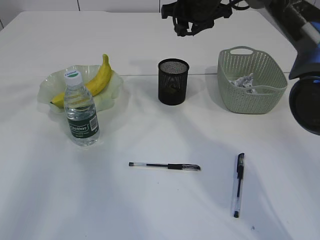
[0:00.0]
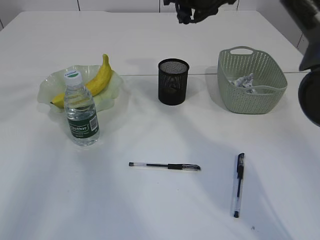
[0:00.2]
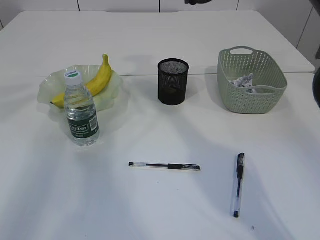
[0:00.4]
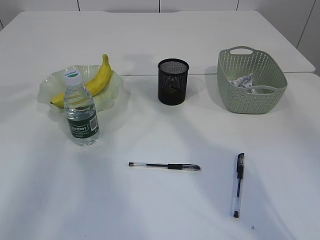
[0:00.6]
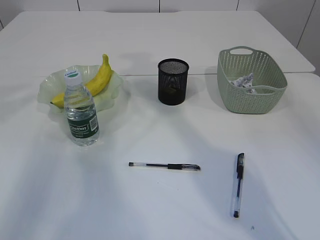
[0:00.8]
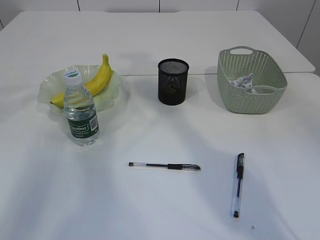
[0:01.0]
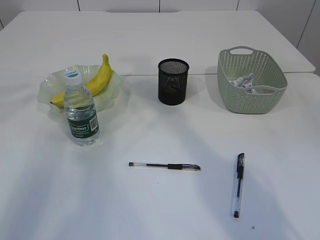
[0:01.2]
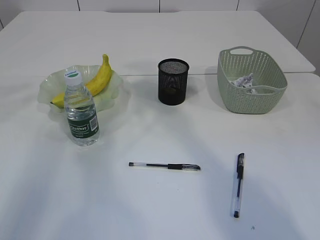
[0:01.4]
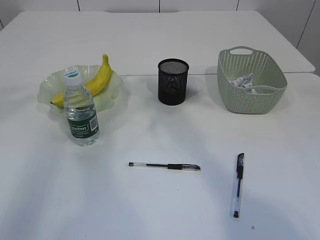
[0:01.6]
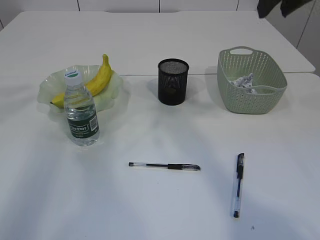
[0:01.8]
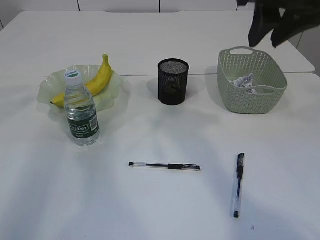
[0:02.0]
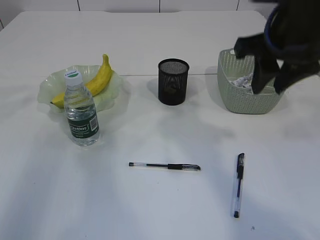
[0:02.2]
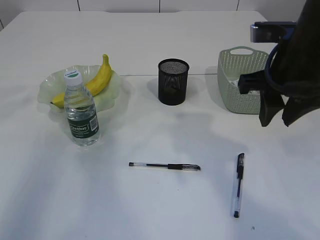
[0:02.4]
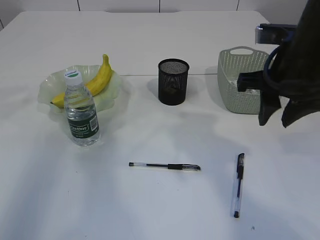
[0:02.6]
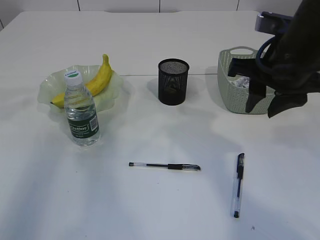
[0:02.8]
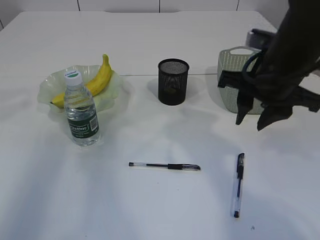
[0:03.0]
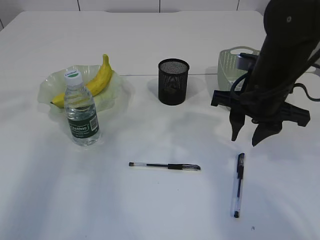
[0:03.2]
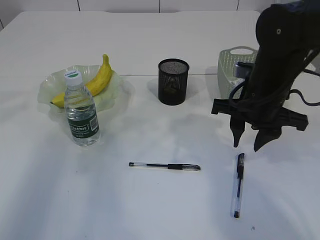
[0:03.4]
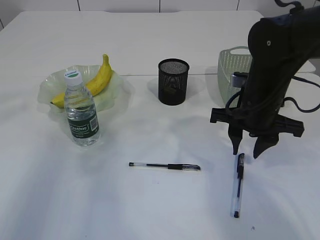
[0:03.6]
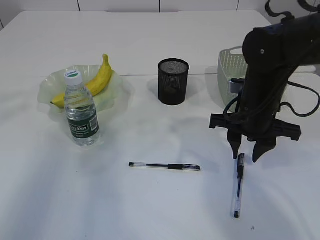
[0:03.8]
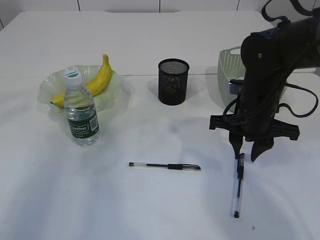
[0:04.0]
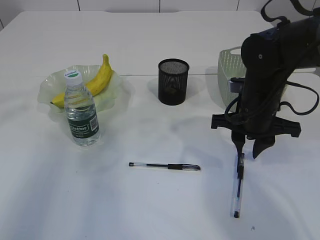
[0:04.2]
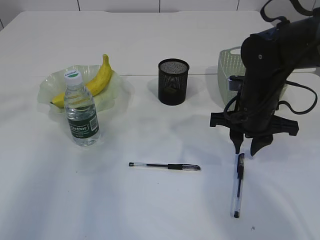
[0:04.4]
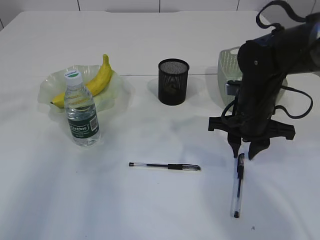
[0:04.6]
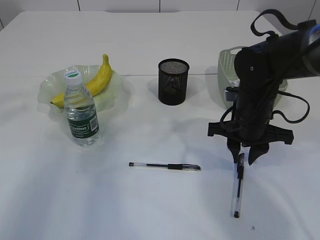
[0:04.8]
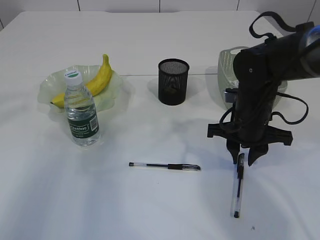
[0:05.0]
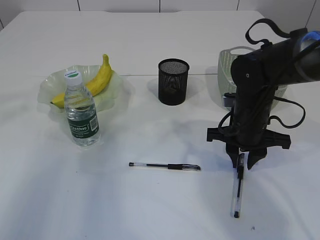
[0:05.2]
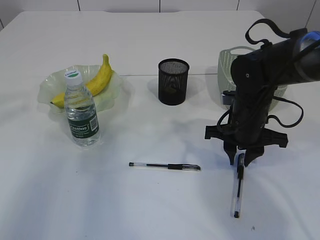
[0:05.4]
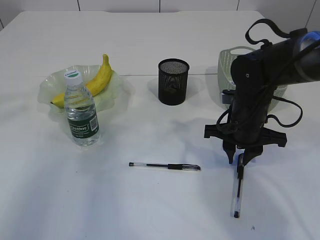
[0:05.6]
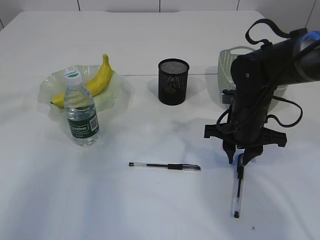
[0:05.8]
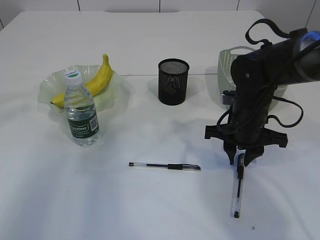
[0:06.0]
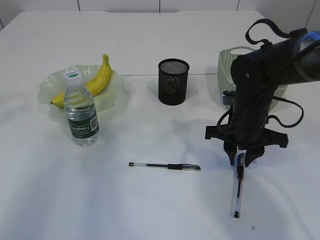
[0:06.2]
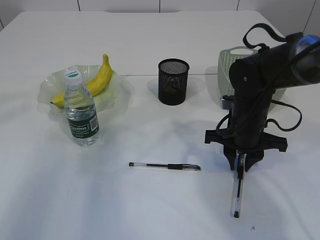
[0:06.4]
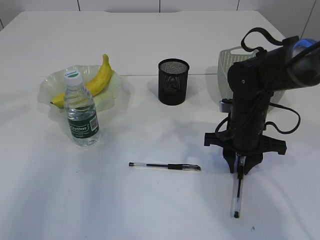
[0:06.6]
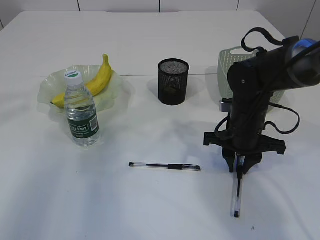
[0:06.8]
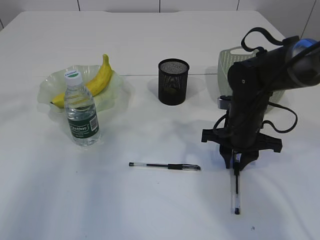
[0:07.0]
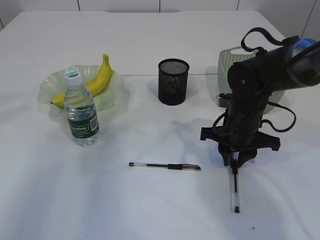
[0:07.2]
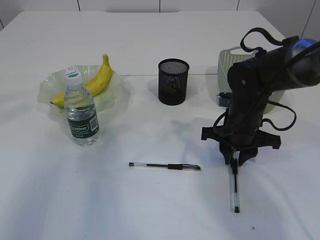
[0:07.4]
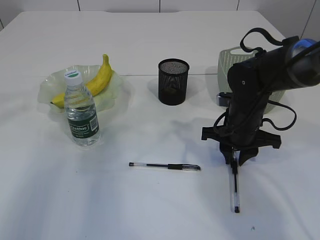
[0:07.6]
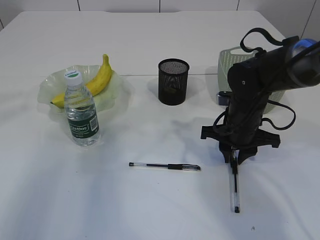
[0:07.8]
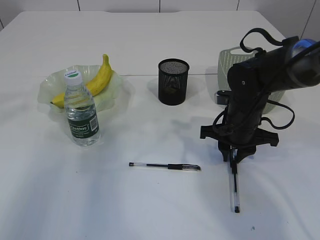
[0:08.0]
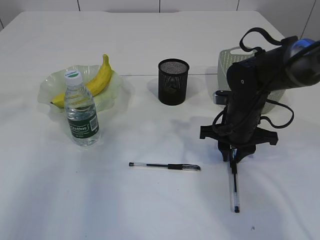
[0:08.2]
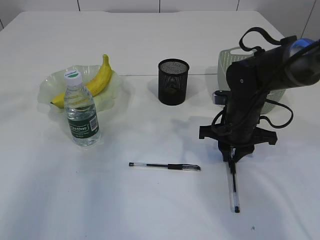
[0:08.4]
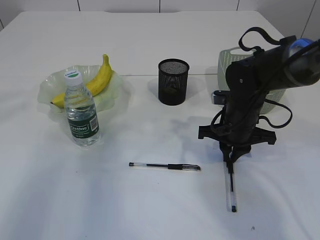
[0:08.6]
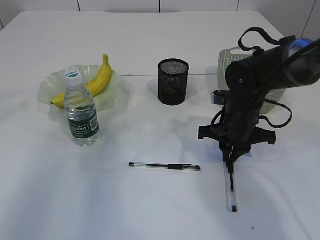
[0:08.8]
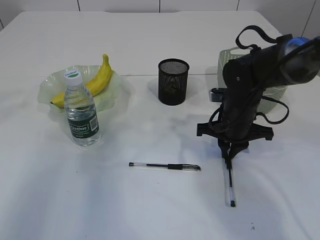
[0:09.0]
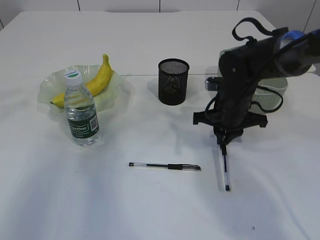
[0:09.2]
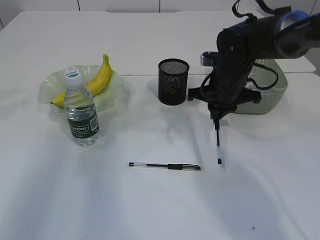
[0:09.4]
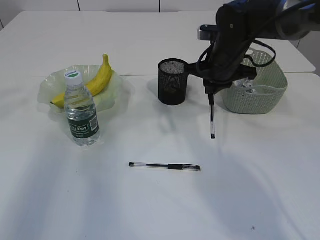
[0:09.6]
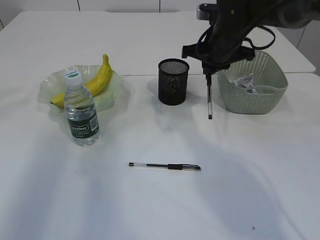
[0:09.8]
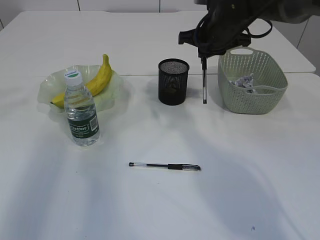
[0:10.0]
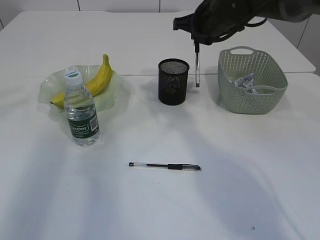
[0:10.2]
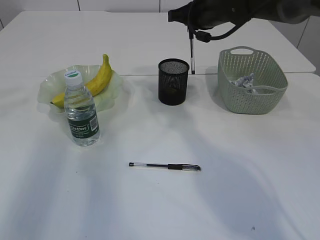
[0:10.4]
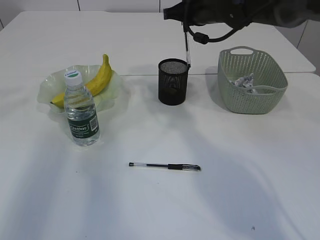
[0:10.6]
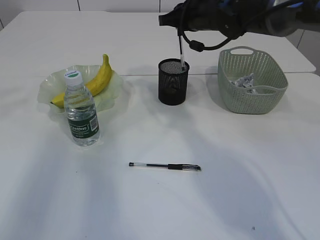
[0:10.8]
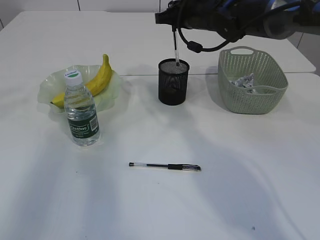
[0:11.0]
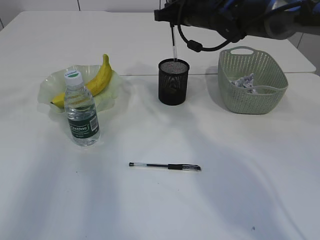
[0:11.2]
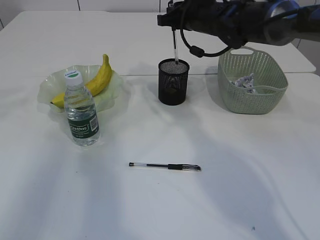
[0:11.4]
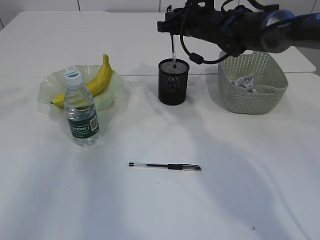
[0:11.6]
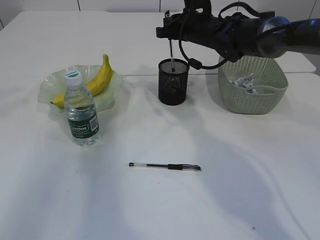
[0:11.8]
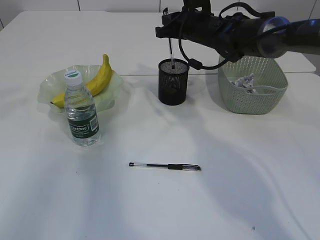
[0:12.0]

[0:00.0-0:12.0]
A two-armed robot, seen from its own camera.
Step, 0:00.0 to 0:09.6: Pick up the pen with right arm.
0:00.0 to 0:01.6: The right gripper shifts about 20 cm backward, upward and to the right.
0:01.6 to 0:03.0: The right gripper heads downward, covering roughly 15 cm.
0:03.0 to 0:04.4: The right gripper heads downward, covering about 10 cm.
0:04.4 to 0:07.6: There are only small adjustments of the grippers.
0:07.6 to 0:09.0: Neither gripper changes place.
0:09.0 to 0:10.4: The right gripper goes approximately 20 cm upward and forward.
0:10.4 to 0:12.0: The right gripper ends up roughly 5 cm from where it was.

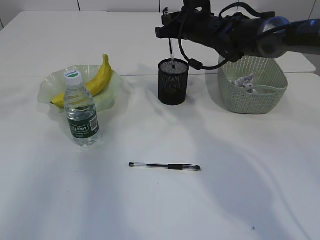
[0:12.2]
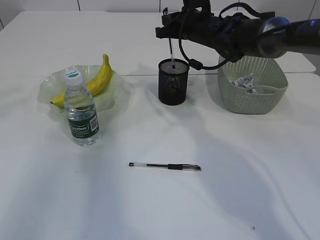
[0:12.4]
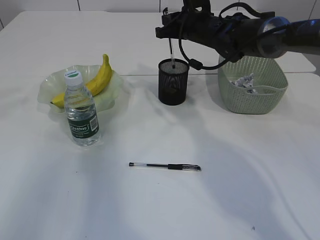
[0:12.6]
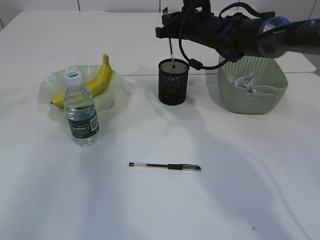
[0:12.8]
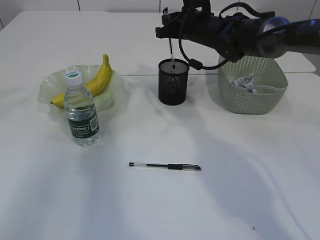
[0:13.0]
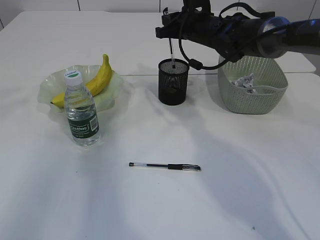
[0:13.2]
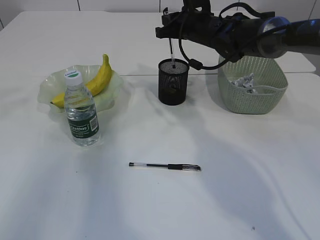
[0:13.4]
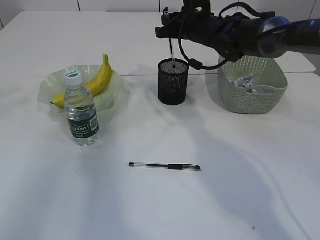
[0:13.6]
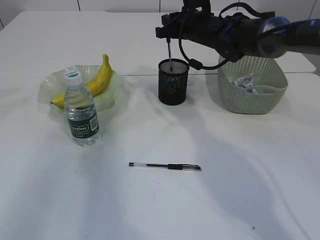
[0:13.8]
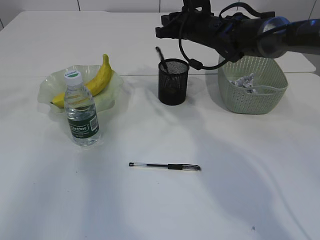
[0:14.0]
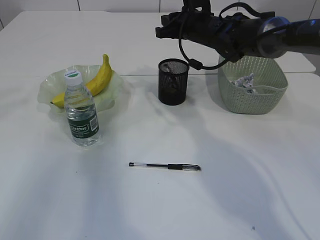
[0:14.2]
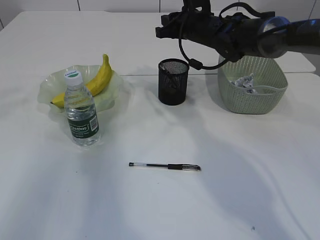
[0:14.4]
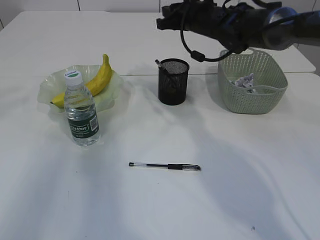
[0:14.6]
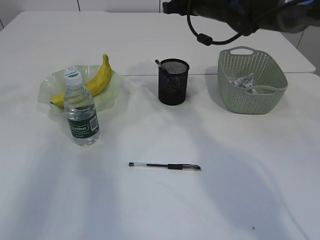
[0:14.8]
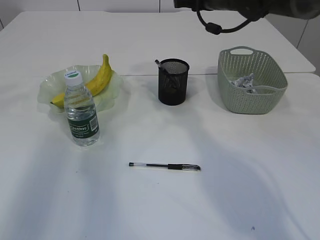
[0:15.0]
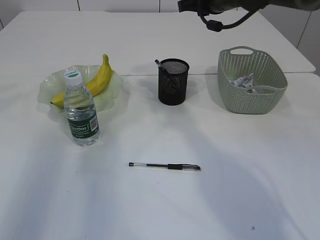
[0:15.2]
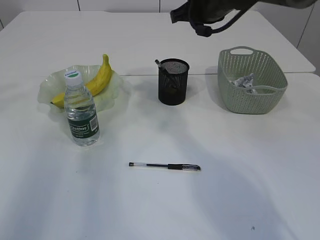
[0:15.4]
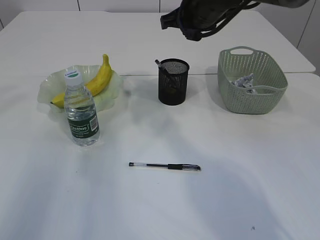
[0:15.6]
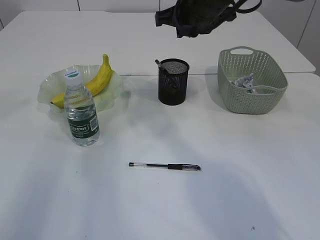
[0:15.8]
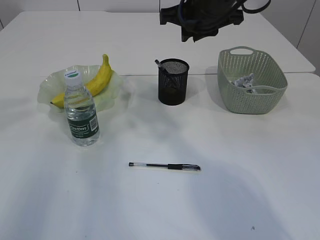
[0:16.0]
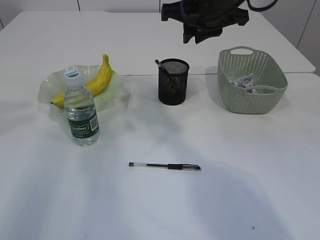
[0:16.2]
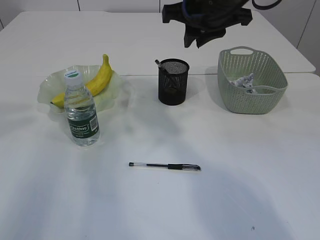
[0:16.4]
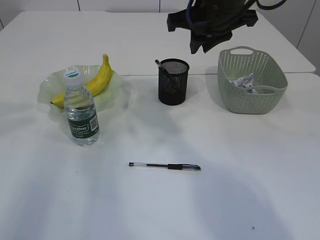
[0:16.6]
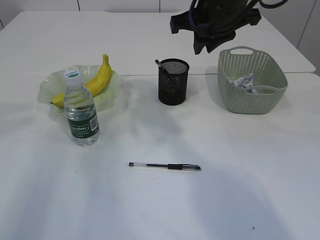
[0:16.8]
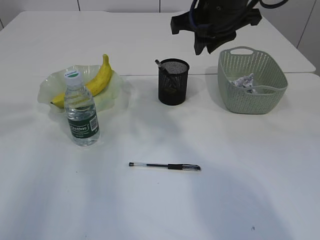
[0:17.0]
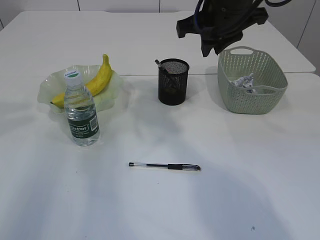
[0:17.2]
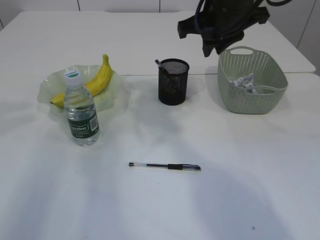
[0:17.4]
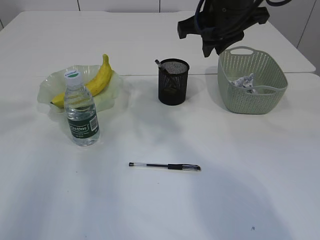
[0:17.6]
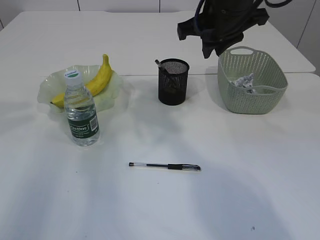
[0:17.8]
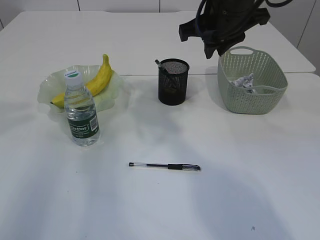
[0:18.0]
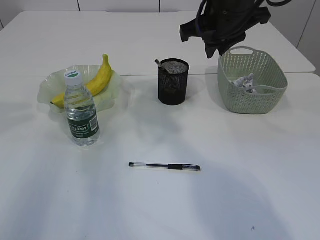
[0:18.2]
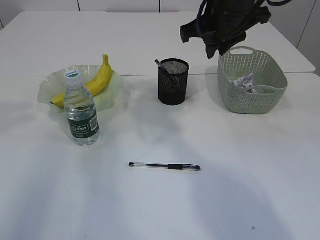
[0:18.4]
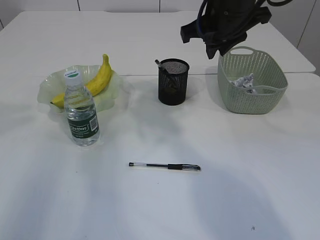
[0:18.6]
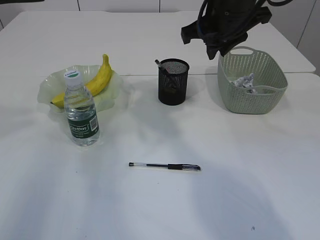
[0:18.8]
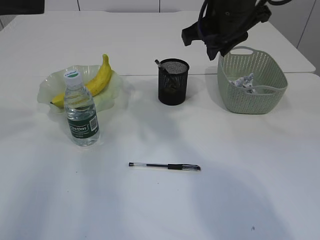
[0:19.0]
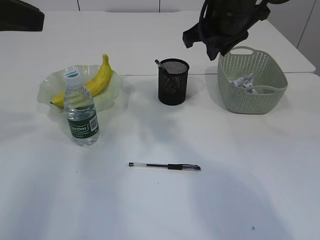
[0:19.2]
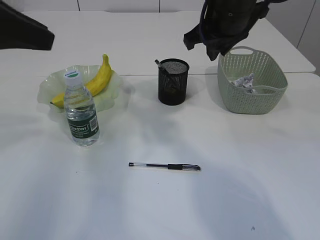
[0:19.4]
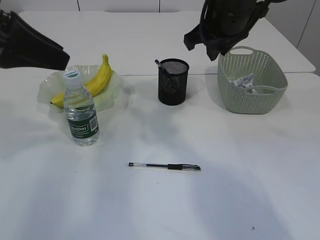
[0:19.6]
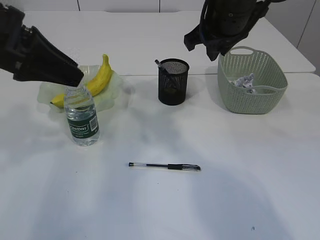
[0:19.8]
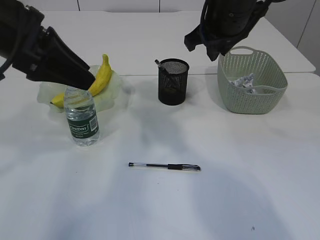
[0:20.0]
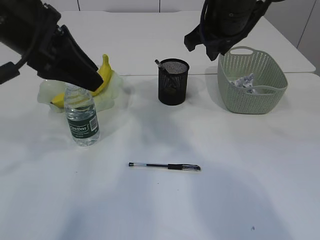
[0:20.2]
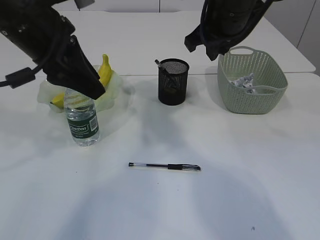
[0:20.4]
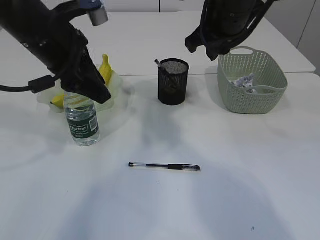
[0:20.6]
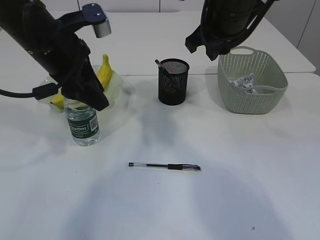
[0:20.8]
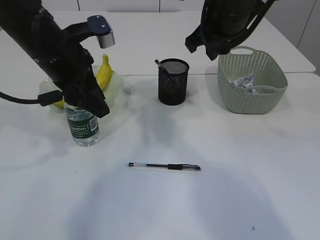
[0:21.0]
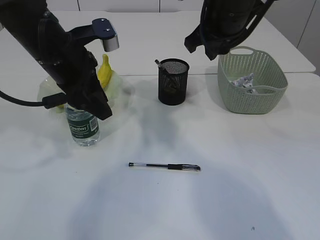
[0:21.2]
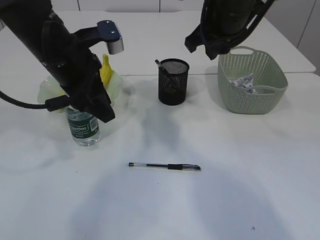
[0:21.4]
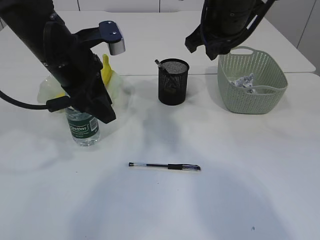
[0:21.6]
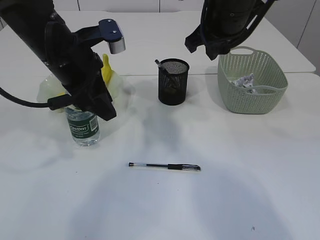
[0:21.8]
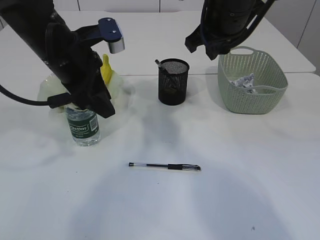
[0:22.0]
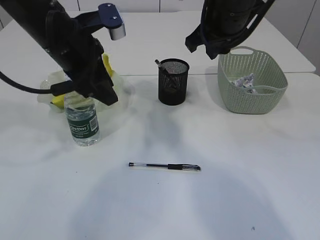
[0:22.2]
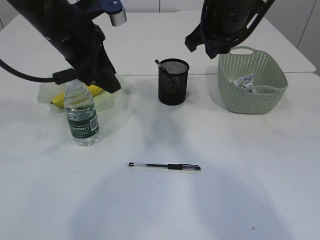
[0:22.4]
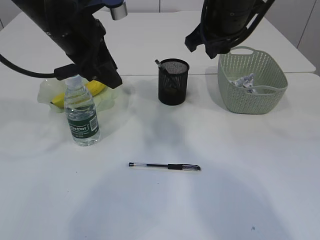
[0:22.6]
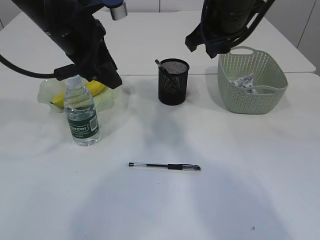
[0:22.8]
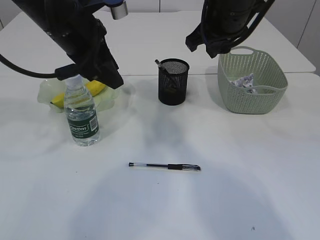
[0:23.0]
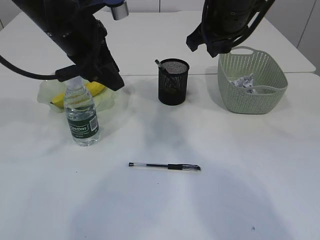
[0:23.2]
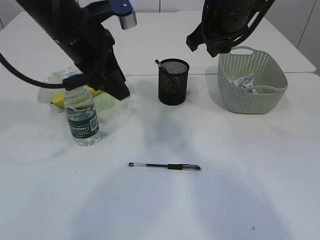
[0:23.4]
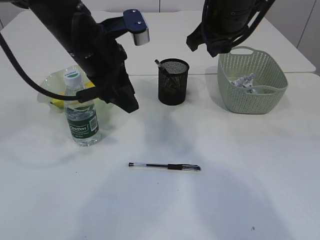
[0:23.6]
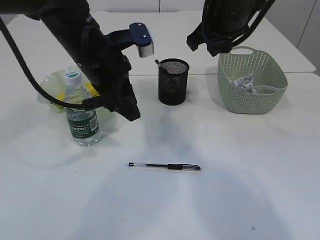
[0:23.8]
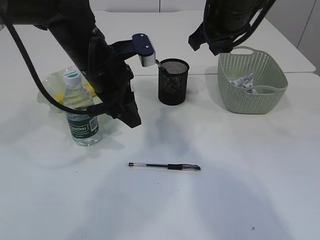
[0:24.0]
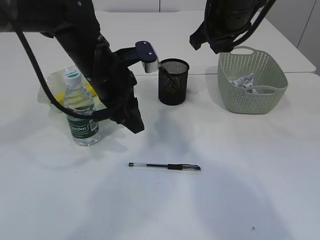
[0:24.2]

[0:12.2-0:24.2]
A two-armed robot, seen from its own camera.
0:12.2 to 0:13.8: The two grippers keep their place.
0:13.8 to 0:15.2: The right gripper is displaced upward by some 10 cm.
0:15.2 to 0:16.6: The right gripper is displaced backward by approximately 10 cm.
0:16.6 to 0:18.2: The grippers stay close to where they were, moving slightly.
0:18.2 to 0:19.8: The left gripper shifts about 5 cm downward.
0:19.8 to 0:21.2: The left gripper moves to the right, downward and forward, approximately 10 cm.
0:21.2 to 0:22.6: The grippers stay close to where they were, moving slightly.
0:22.6 to 0:24.2: The left gripper moves downward, about 10 cm.
